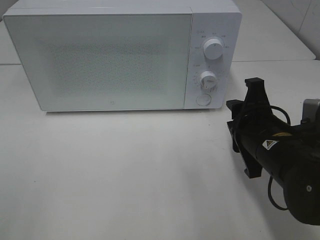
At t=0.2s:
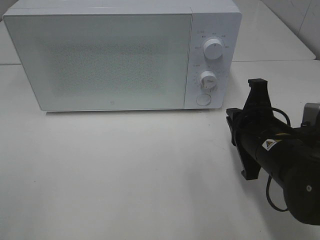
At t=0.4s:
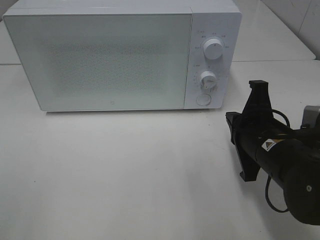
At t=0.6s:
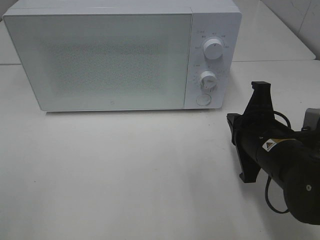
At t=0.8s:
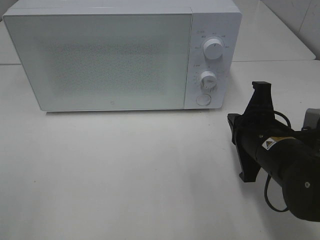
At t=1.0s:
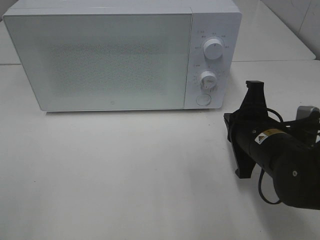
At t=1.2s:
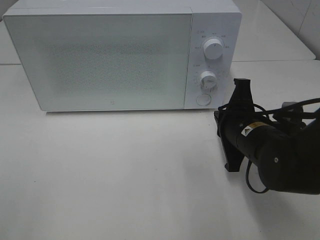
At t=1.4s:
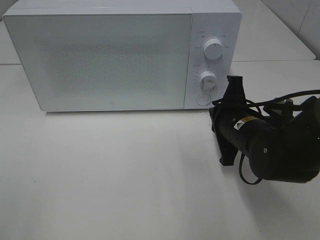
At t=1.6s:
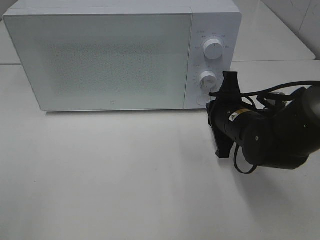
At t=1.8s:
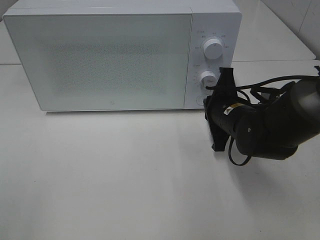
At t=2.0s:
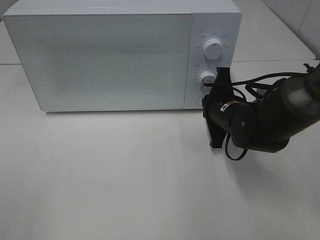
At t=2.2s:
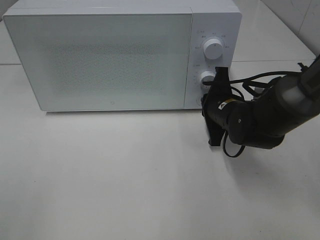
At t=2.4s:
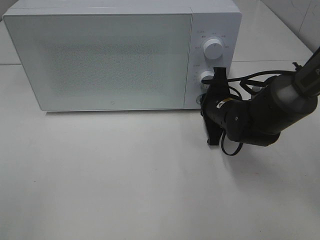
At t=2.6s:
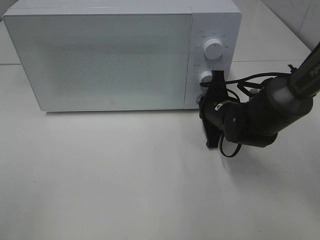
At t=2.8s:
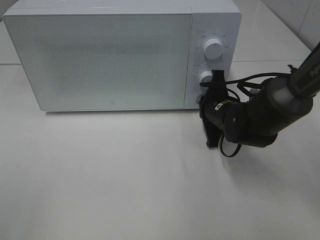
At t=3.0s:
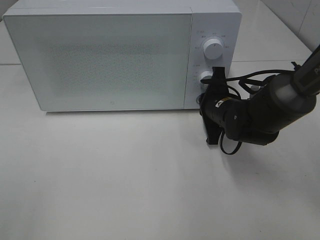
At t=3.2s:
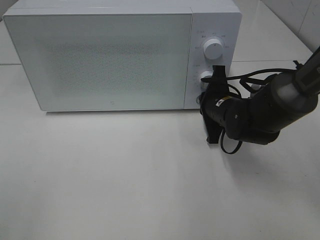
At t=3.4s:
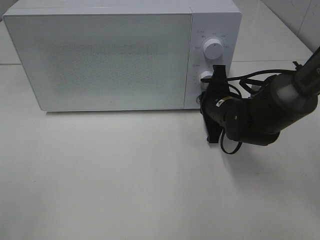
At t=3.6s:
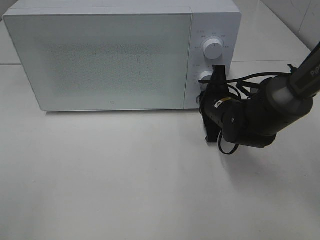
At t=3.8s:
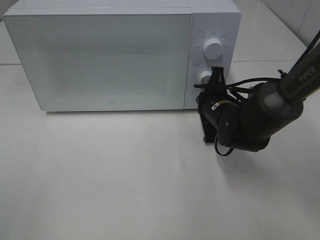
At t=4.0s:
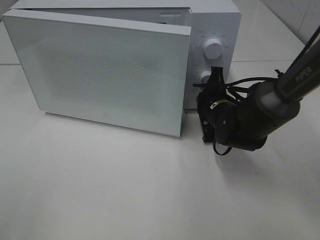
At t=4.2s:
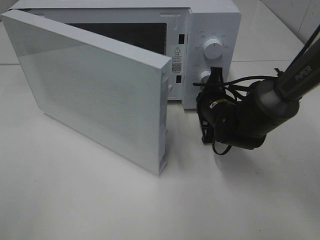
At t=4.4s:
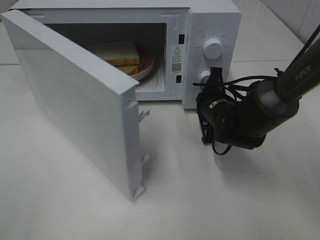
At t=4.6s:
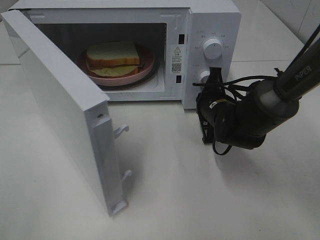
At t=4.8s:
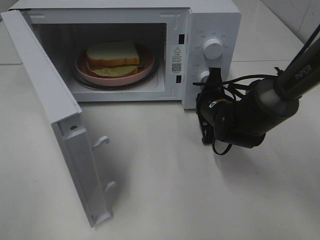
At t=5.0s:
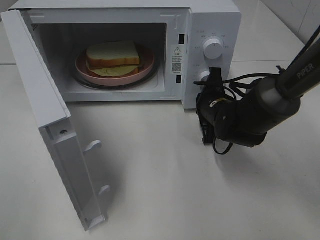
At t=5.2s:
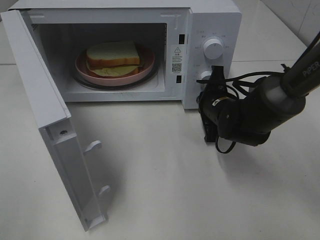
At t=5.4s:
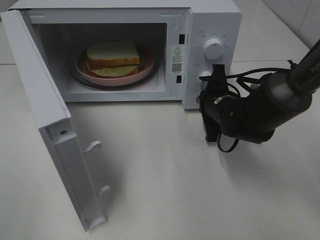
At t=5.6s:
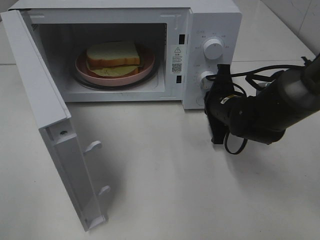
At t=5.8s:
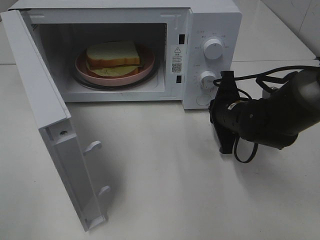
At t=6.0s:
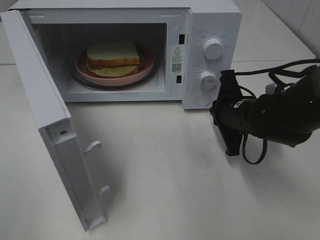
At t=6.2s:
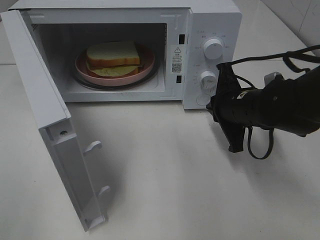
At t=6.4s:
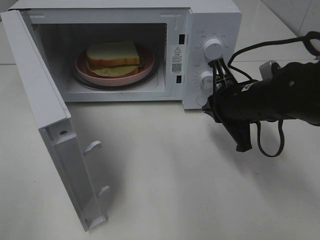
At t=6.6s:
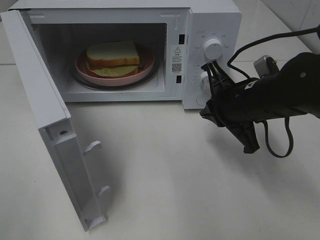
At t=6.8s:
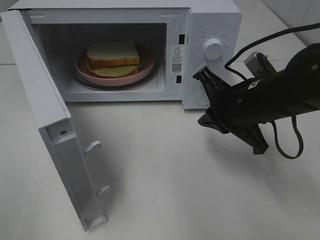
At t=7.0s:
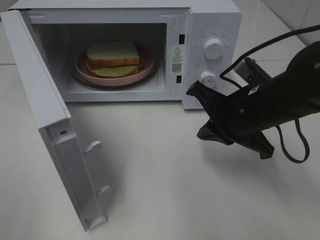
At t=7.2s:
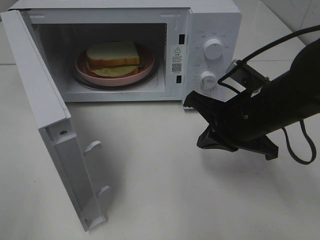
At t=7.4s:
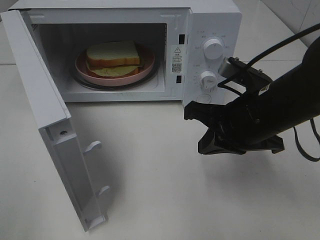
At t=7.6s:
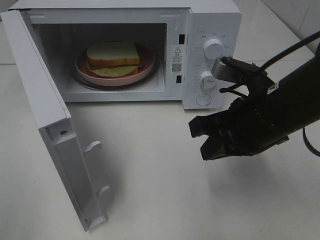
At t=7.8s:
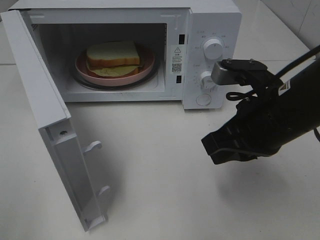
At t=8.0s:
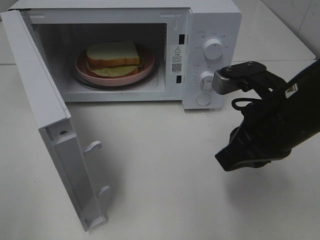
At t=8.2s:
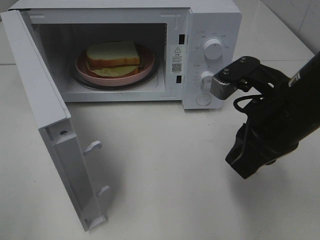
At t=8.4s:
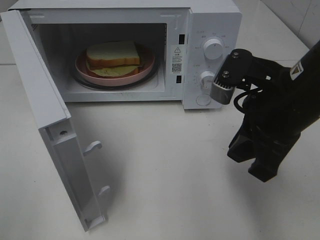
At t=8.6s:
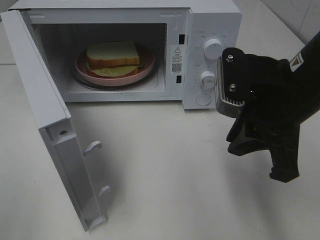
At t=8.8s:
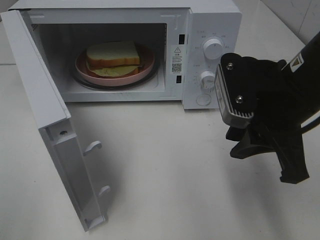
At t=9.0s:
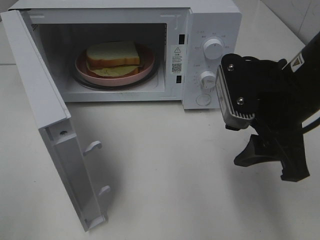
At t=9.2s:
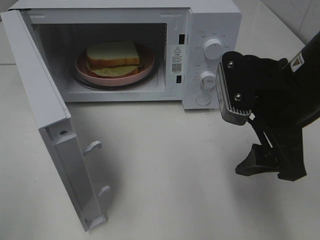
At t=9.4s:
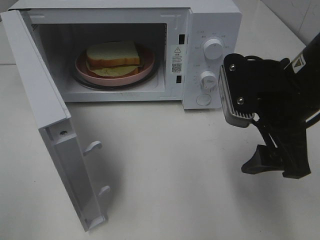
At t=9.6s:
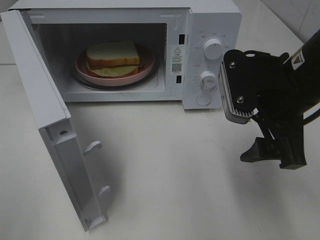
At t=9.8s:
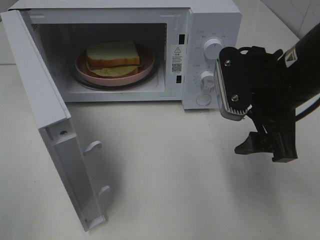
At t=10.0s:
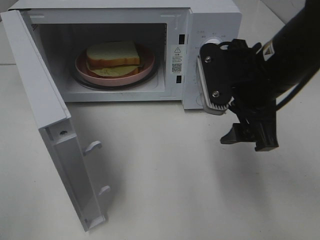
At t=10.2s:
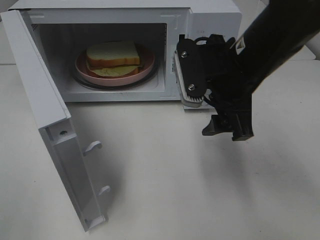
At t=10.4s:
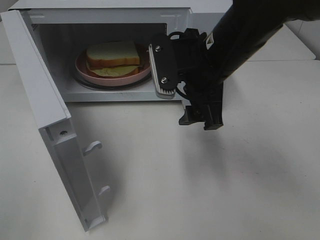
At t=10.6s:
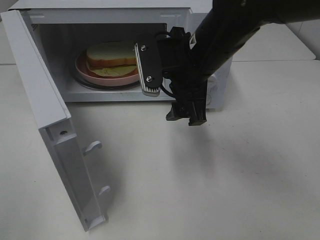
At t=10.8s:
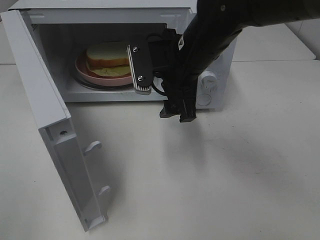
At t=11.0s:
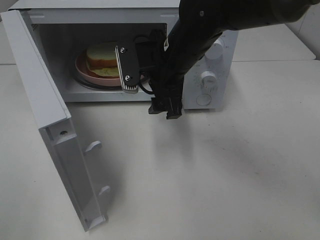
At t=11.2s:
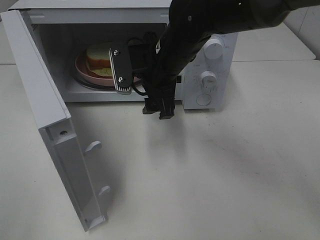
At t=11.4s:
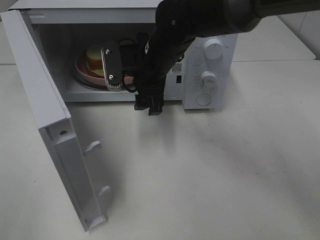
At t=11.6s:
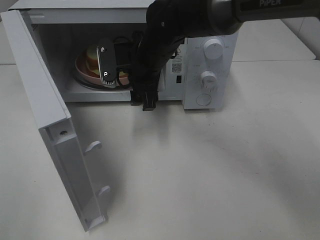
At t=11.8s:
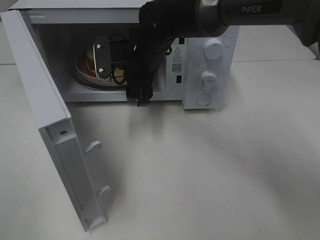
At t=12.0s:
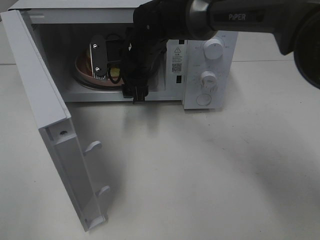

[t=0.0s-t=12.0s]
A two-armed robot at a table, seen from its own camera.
Task of the whole recording: Heat Sandwich.
Step, t=0.0s to t=6.2s: Right hand: press the switch.
t=0.0s to t=1.6s: The right gripper heads forward, covering about 10 cm, and closes.
t=1.6s to t=3.0s: The right gripper is displaced forward by roughly 5 cm.
t=4.4s to t=6.0s: The right gripper ends up about 5 cm from where it was.
t=6.0s to t=7.6s: The right gripper moves backward and upward, some 15 cm.
t=7.6s to t=9.0s: The right gripper opens up.
t=9.0s to t=10.4s: The right gripper heads to the left and forward, covering roughly 10 cm.
t=10.4s to t=12.0s: The right gripper is displaced forward, to the left and downward by about 20 cm.

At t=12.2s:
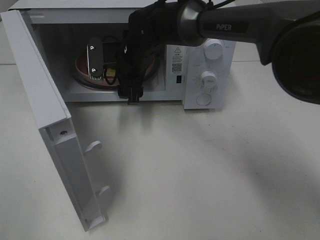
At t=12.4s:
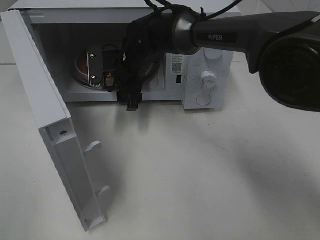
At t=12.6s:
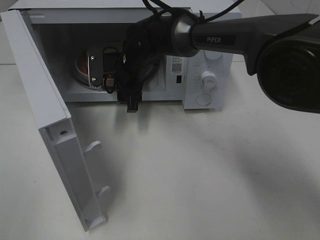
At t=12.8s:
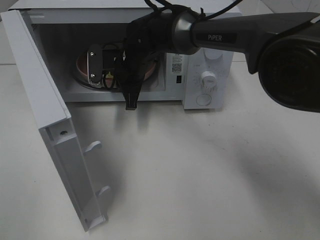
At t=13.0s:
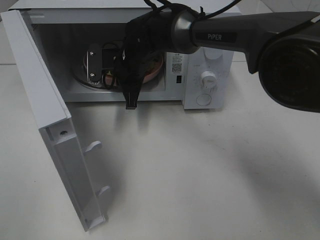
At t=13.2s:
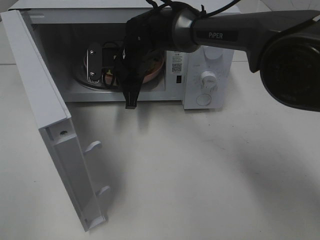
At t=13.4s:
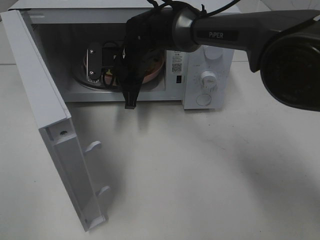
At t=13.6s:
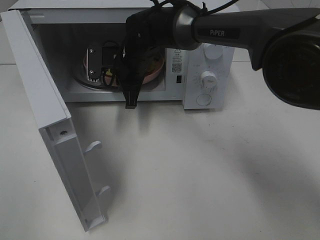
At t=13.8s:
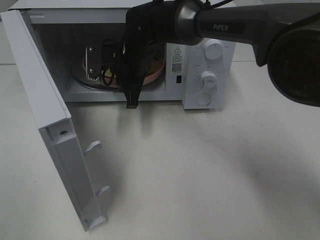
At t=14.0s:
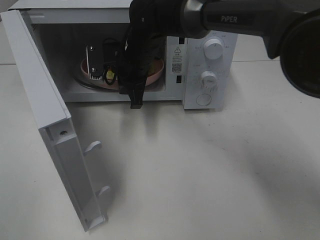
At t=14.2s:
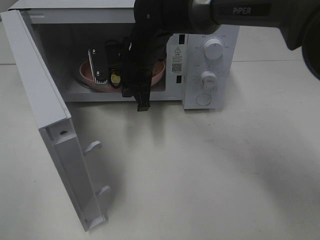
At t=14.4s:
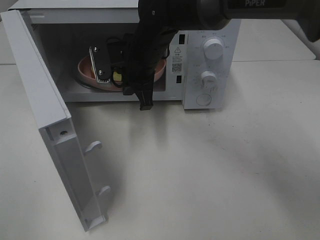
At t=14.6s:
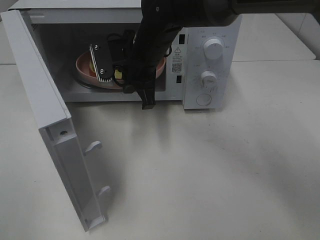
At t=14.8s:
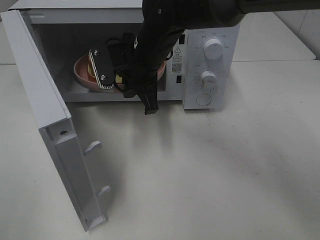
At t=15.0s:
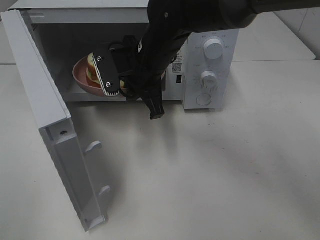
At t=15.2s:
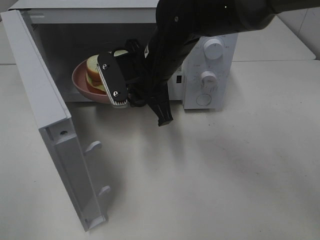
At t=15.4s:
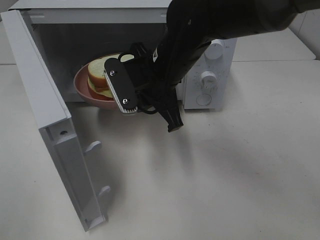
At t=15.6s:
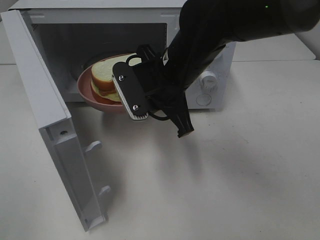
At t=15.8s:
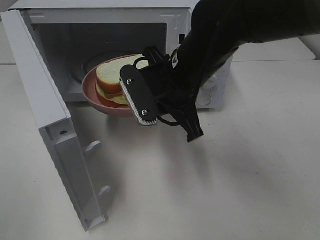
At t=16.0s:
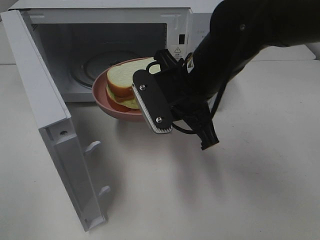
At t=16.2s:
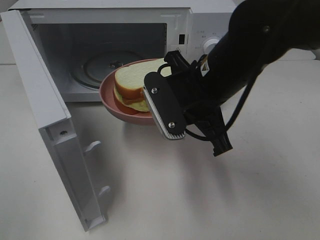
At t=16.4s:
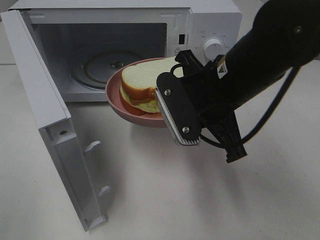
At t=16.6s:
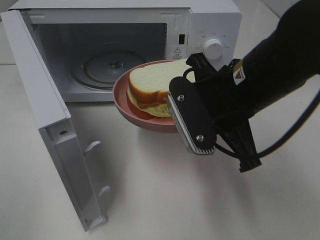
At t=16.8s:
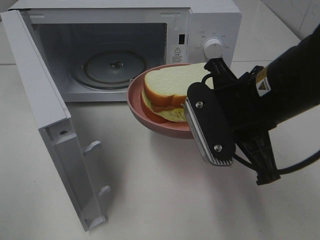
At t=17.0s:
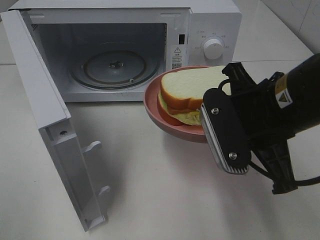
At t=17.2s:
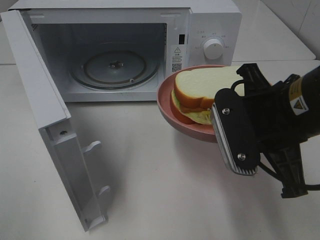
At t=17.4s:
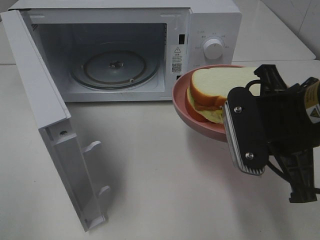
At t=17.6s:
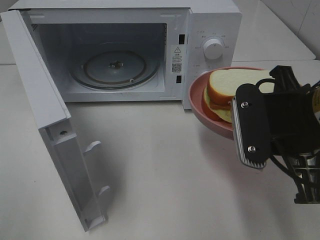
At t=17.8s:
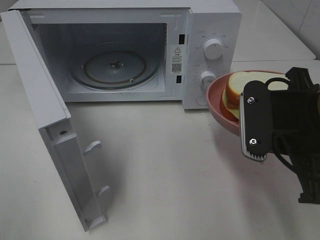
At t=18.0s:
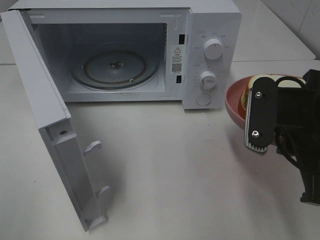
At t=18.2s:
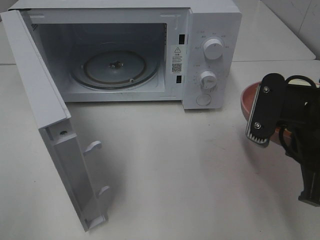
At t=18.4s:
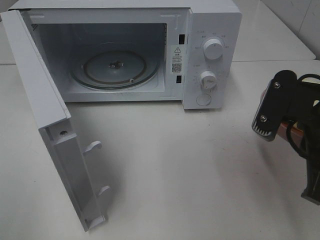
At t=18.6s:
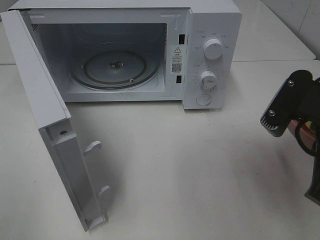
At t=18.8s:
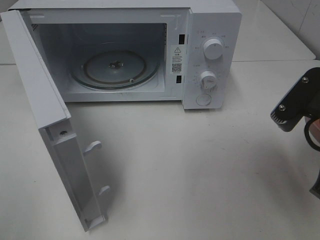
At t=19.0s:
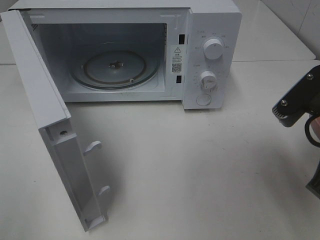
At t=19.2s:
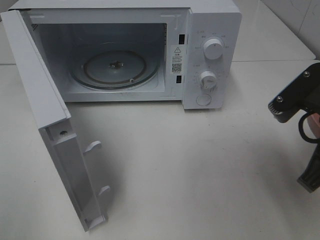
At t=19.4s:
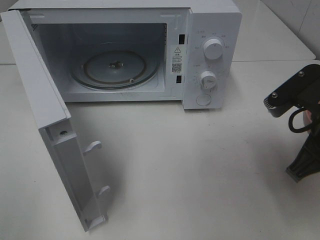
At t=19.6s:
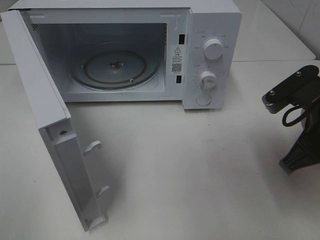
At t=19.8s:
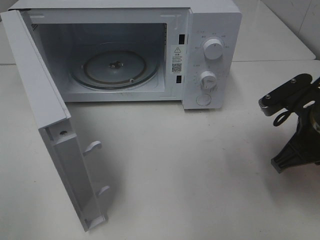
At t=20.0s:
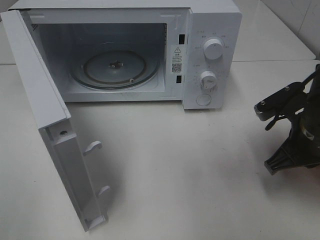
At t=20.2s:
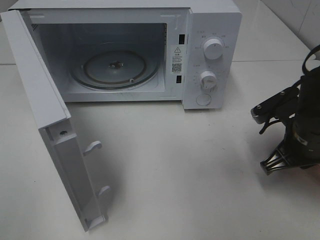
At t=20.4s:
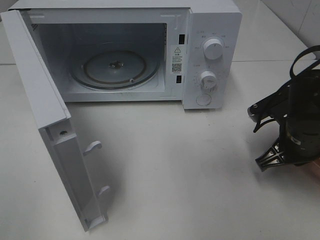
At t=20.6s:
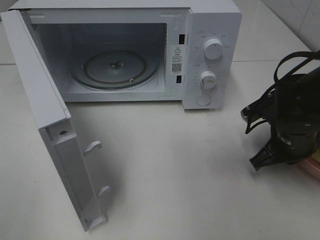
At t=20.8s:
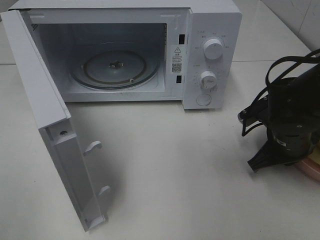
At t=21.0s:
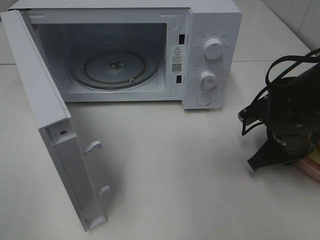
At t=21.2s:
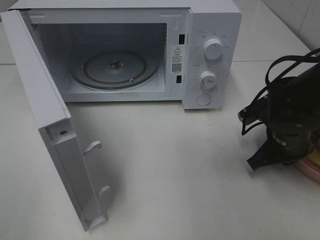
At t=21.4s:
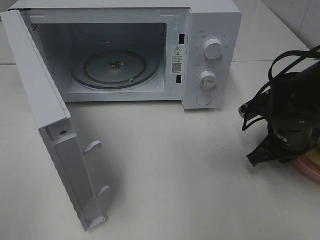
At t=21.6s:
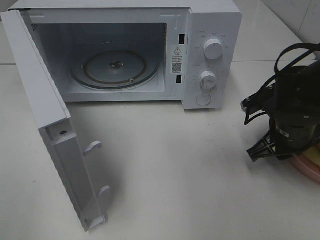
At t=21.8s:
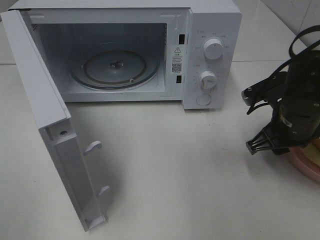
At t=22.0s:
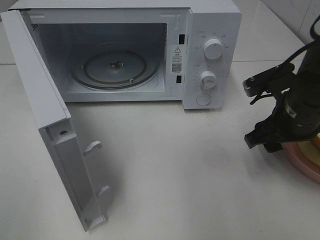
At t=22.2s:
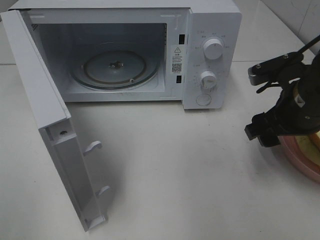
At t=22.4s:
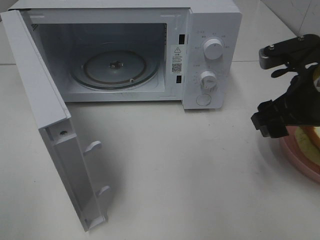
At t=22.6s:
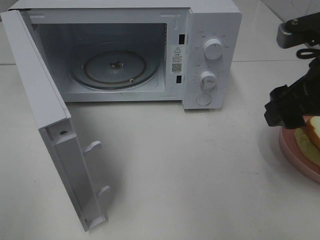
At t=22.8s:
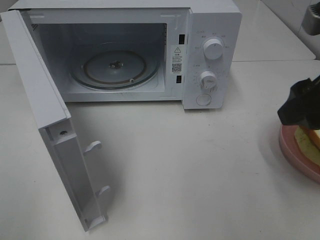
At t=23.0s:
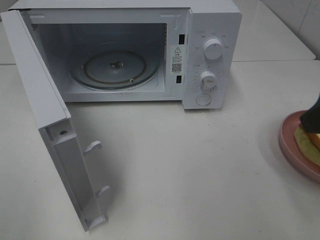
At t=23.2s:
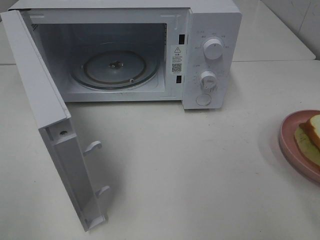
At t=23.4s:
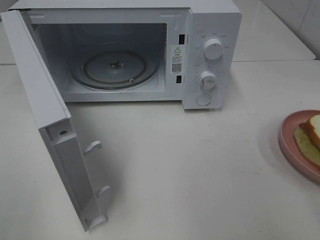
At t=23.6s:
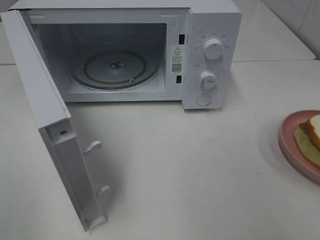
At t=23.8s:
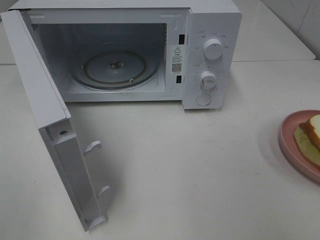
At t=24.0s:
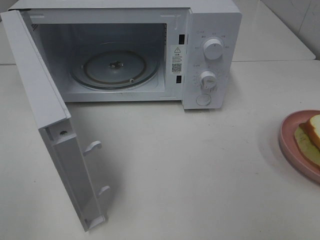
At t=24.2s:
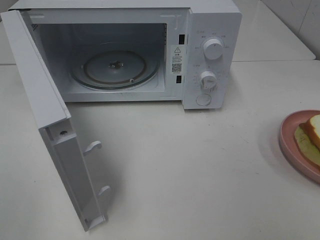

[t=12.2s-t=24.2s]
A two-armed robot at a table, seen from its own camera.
Task of the whole recording: Heat Sandwich.
Step, t=13.4s to t=22.4s: Right hand: place the plate on the table.
t=12.2s to t=13.8s: The right gripper closes.
t=13.8s to t=15.2s: The right gripper heads backward, covering about 10 cm.
t=15.2s to t=16.6s: The right gripper heads backward and to the right, covering about 15 cm.
t=16.6s to t=18.2s: The right gripper goes roughly 10 cm to the right.
t=18.2s to t=19.8s: The right gripper travels downward and forward by some 10 cm.
t=19.8s to t=21.2s: The right gripper shifts roughly 5 cm downward.
t=21.2s to t=22.6s: The right gripper shifts approximately 15 cm upward, and opens.
t=22.6s to t=24.2s: The right gripper heads backward and to the right, covering some 20 cm.
